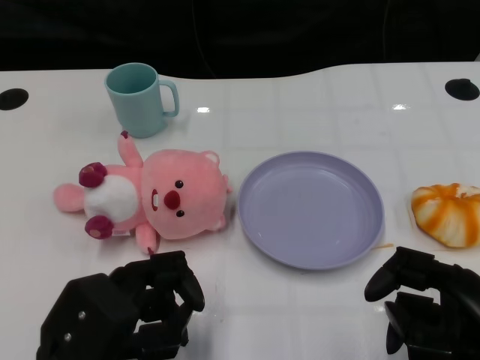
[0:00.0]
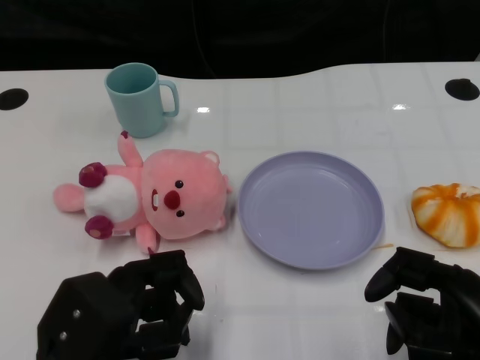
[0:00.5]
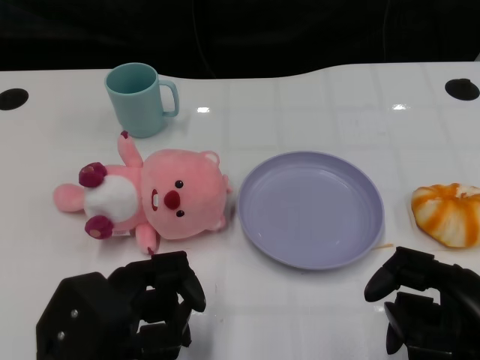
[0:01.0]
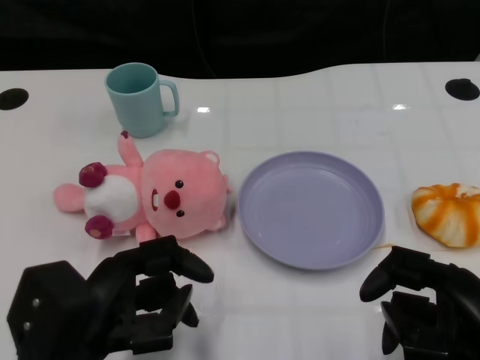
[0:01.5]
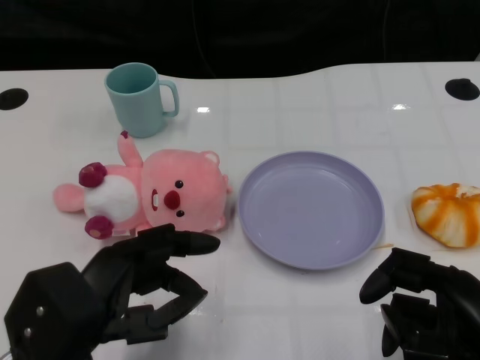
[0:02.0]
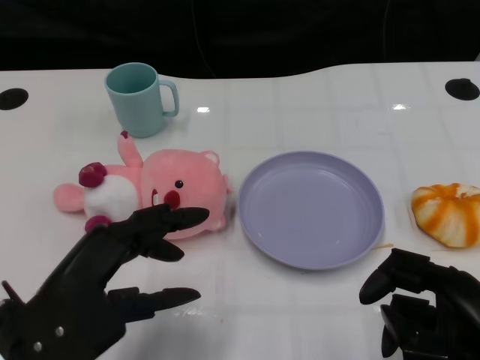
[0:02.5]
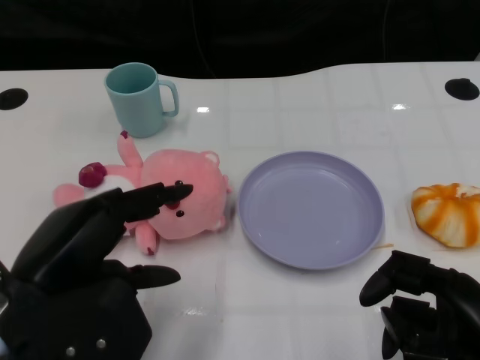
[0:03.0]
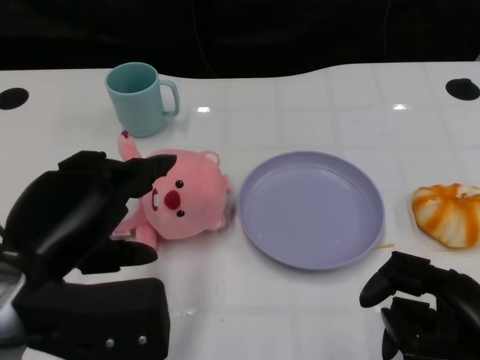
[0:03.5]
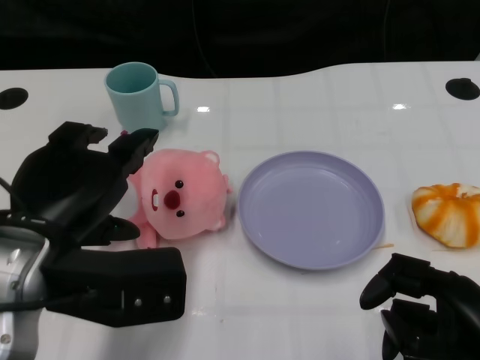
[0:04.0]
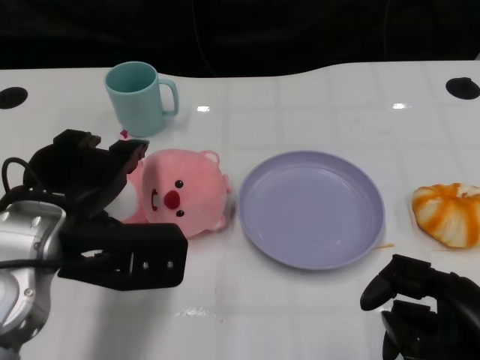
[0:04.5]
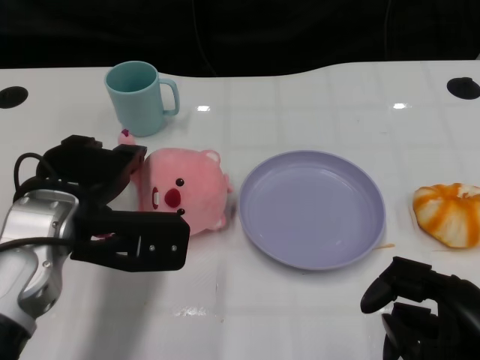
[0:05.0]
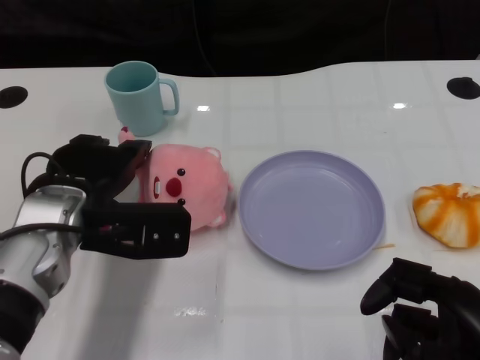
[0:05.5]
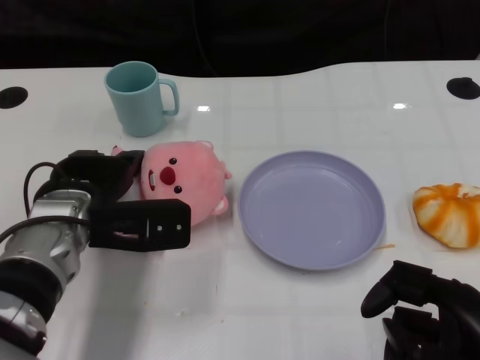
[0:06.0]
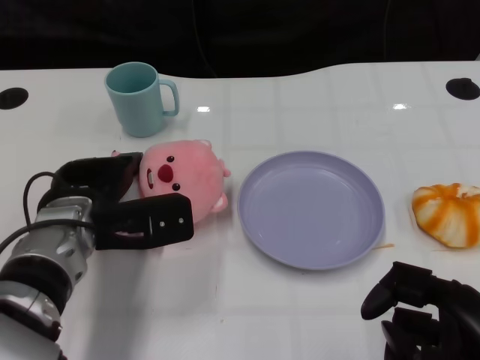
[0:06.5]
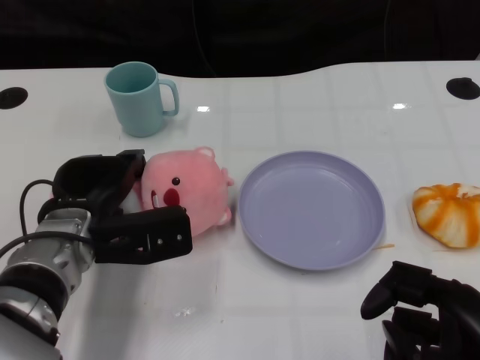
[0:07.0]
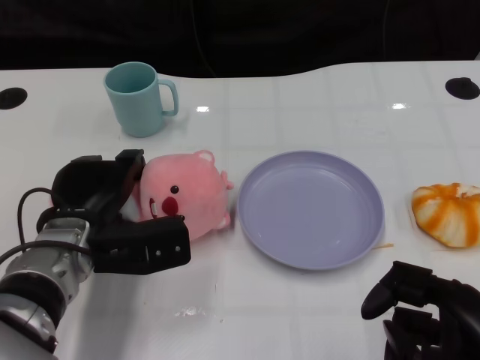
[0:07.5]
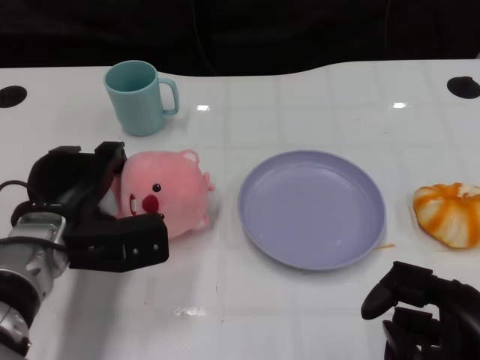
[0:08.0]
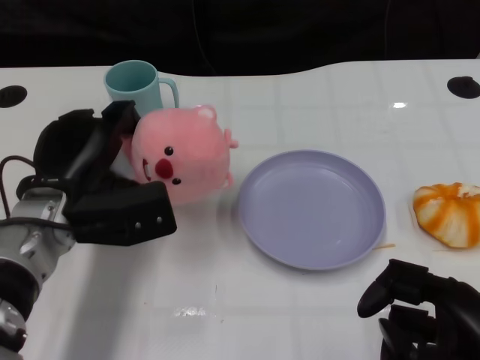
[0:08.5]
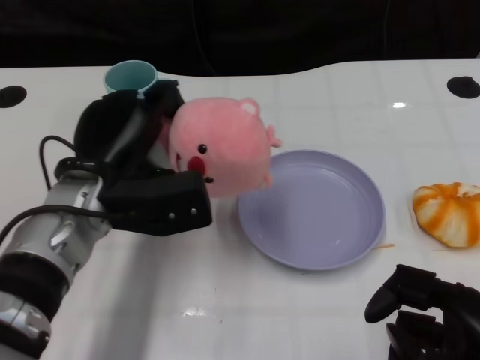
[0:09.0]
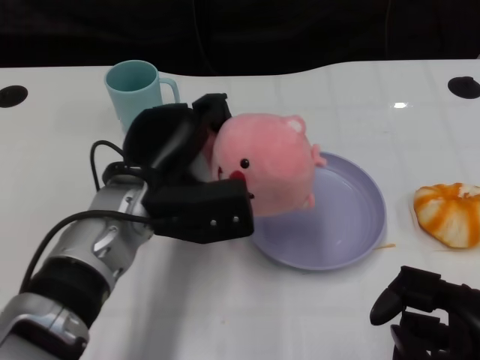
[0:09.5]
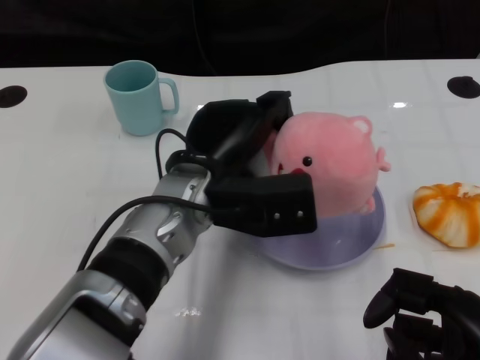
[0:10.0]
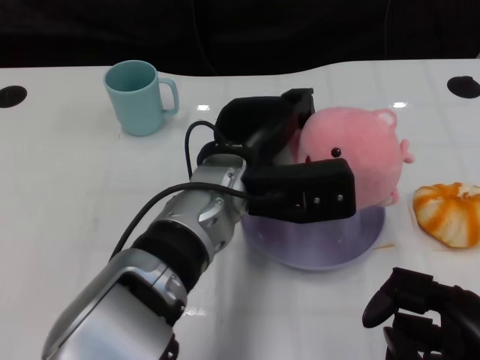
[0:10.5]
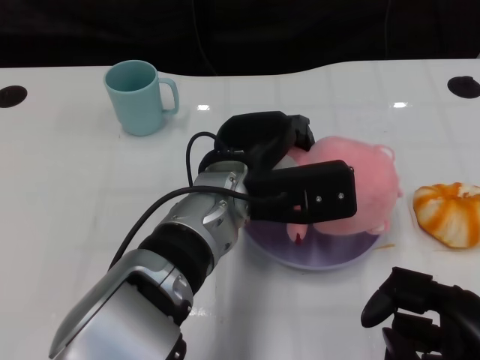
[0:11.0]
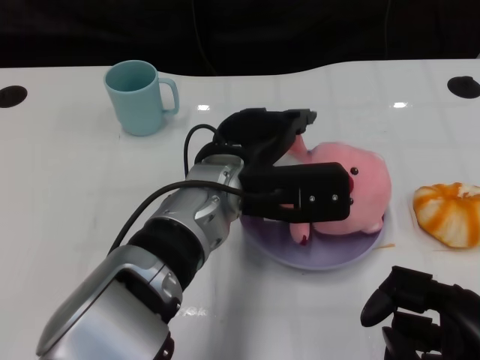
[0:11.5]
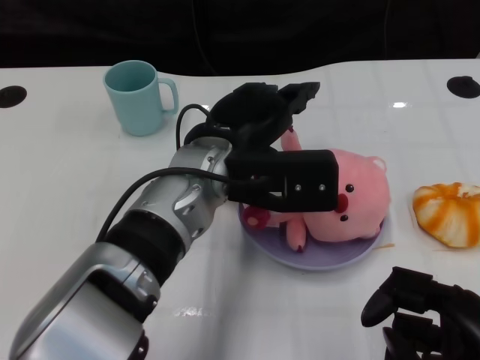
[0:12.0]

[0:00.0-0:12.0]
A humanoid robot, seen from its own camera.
Task of the whole recording: Pick up the doll on one side of the plate and place it into the plate.
Step, 0:01.0 to 0:08.0: Grasp the pink doll with the left gripper.
0:02.0 to 0:04.0: The left hand moves upward and forward, roughly 10 cm.
0:04.0 to 0:06.0: The left hand travels forward and downward by approximately 10 cm.
0:06.0 to 0:08.0: The hands make only small movements.
0:08.0 to 0:10.0: The left hand moves to the right and upward, approximately 15 cm.

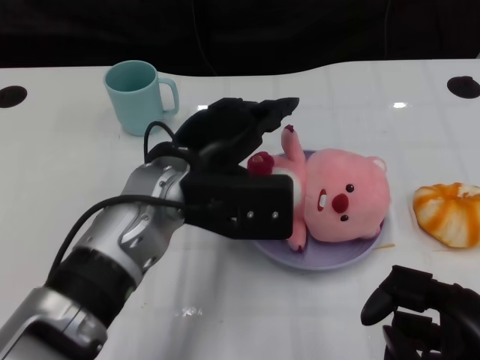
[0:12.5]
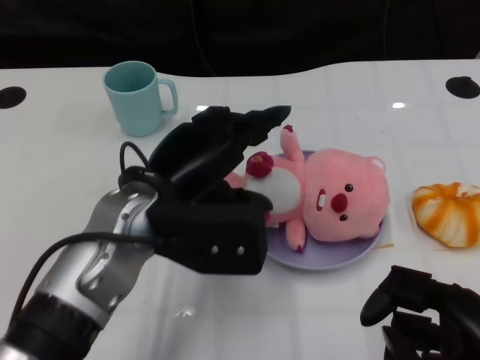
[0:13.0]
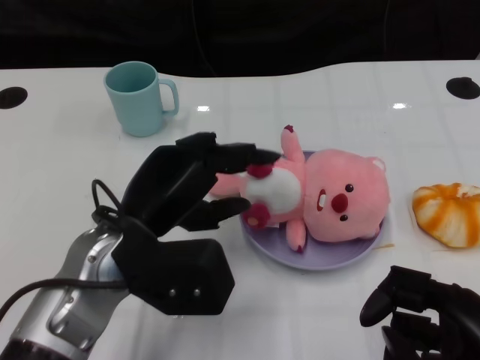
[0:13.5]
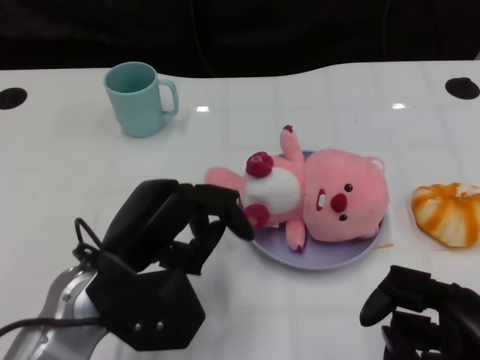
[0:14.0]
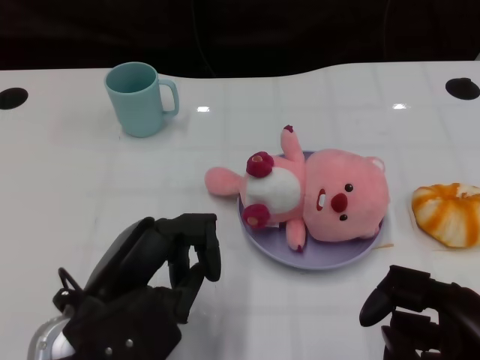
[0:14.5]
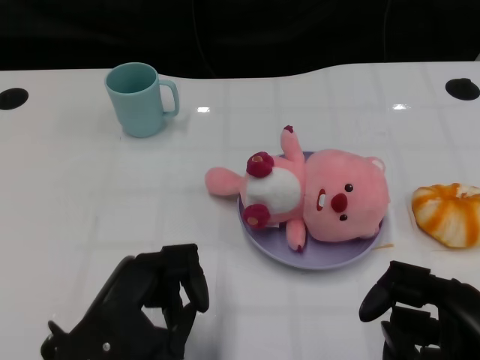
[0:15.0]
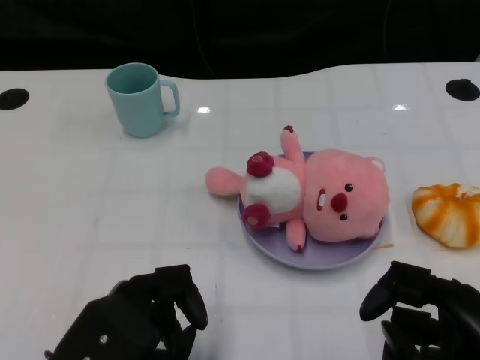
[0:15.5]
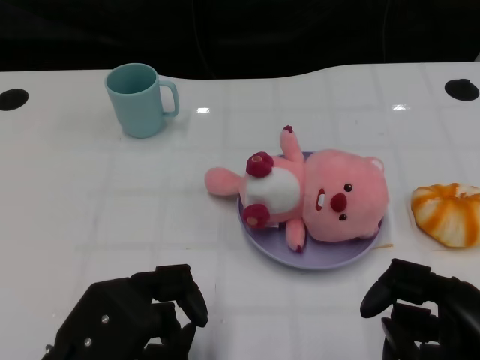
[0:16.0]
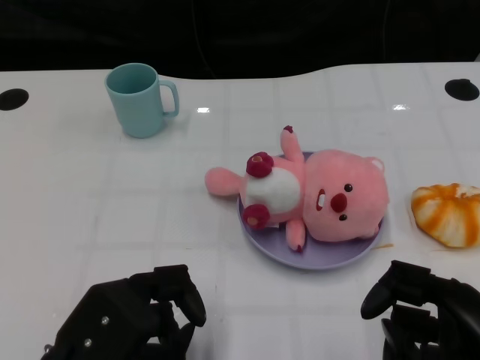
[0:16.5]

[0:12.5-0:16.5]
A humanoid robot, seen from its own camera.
Task of the whole recording: Pick up the doll on one side of the plate and place it into the plate.
0:12.5 to 0:14.5: The left hand travels backward, to the left and downward by roughly 15 cm.

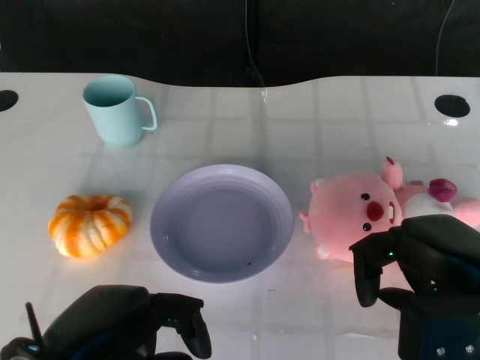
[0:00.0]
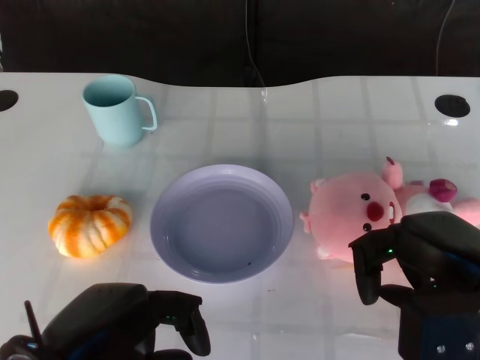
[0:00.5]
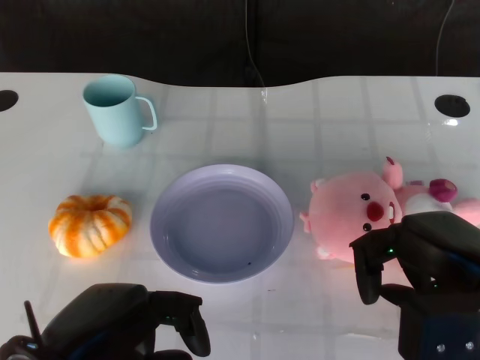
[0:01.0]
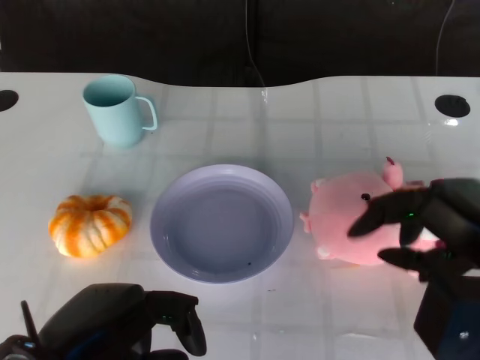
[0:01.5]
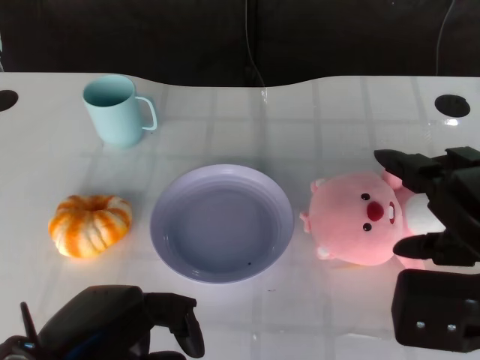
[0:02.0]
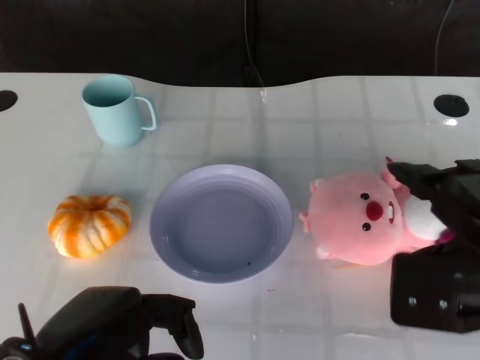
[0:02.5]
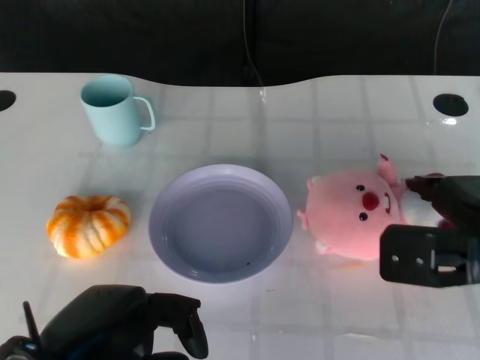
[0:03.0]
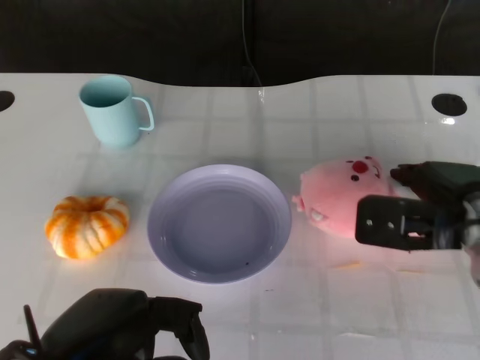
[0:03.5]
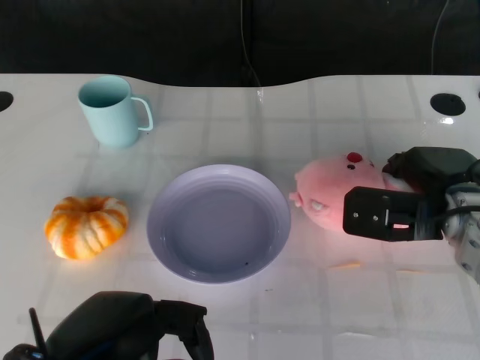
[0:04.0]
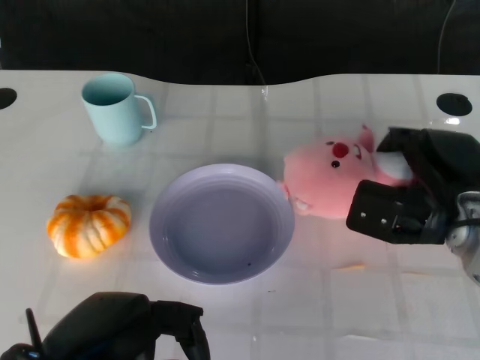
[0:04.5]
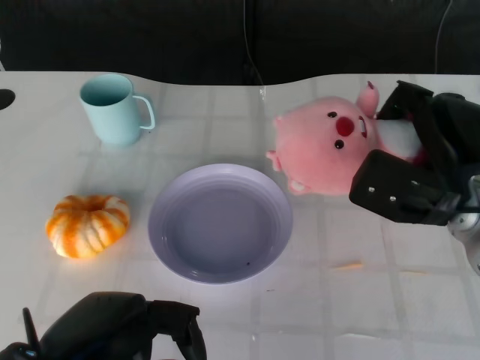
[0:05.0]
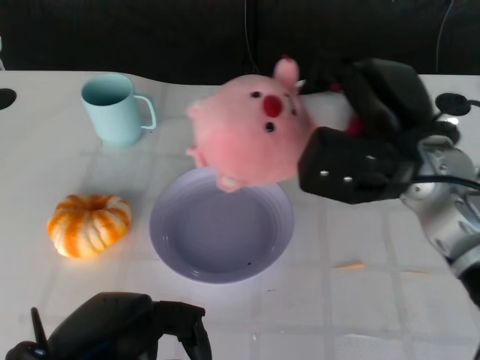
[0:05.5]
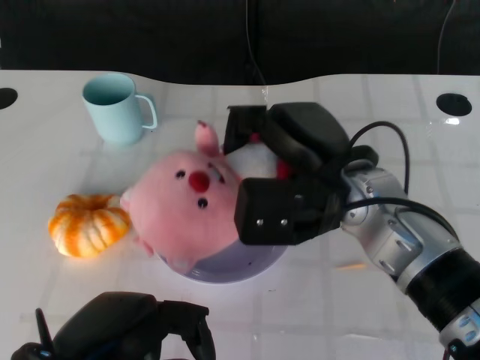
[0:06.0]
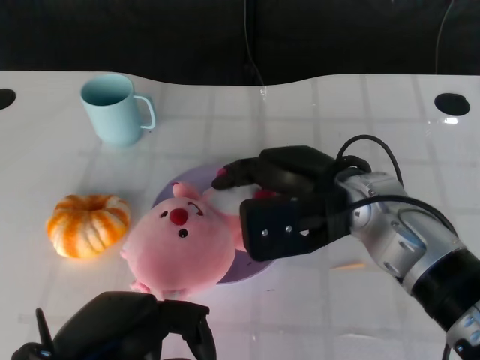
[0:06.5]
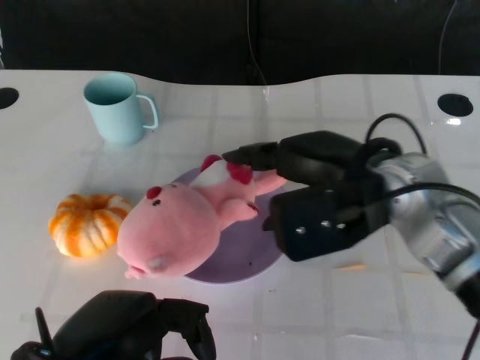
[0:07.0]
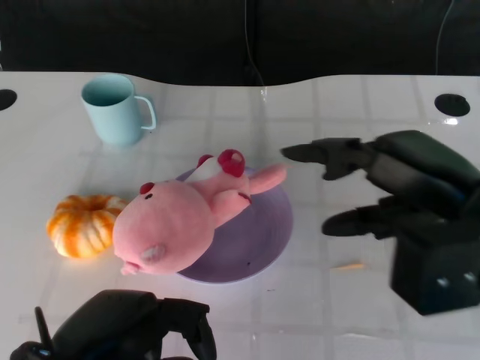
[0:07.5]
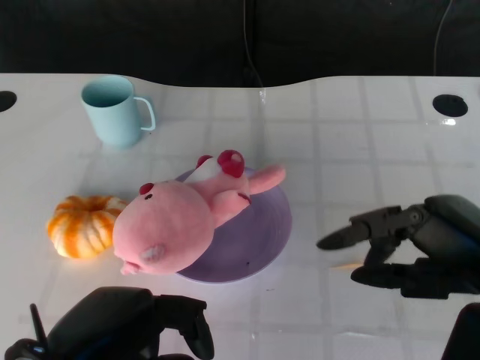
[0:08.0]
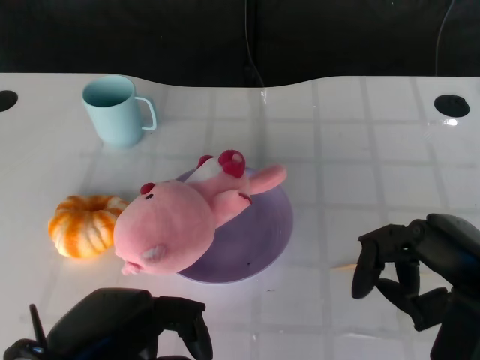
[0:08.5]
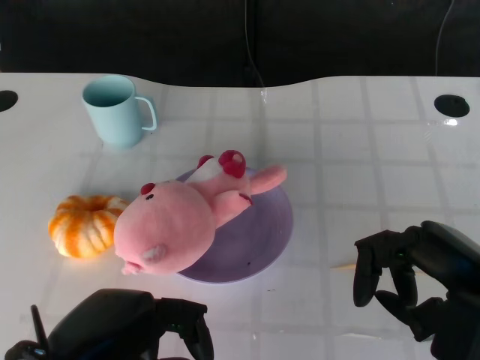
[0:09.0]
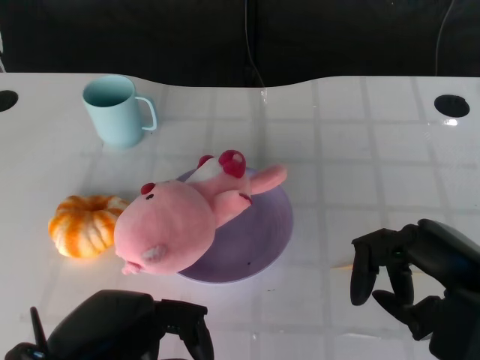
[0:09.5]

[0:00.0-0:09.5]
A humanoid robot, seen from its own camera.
Task of the whole recording: Pick up the doll on the other side of the plate and place it into the plate.
Step, 0:01.5 to 0:05.0: Grasp the pink doll with the right gripper.
Step, 0:05.5 to 0:07.0: Place the pink doll into the plate with the right gripper.
0:02.0 to 0:04.0: The right hand goes approximately 15 cm forward and downward.
0:04.0 to 0:05.5: The right hand is displaced upward and to the left by roughly 10 cm.
0:05.5 to 0:07.5: The right hand shifts approximately 10 cm backward and to the right.
0:07.5 to 0:09.5: The right hand is displaced downward by some 5 cm.
